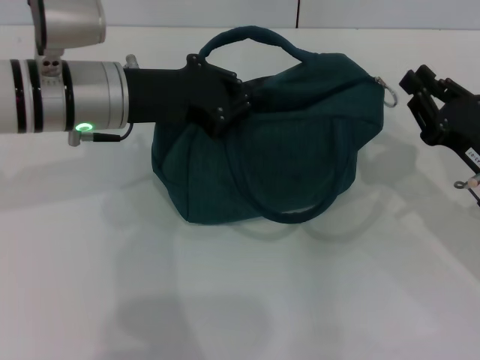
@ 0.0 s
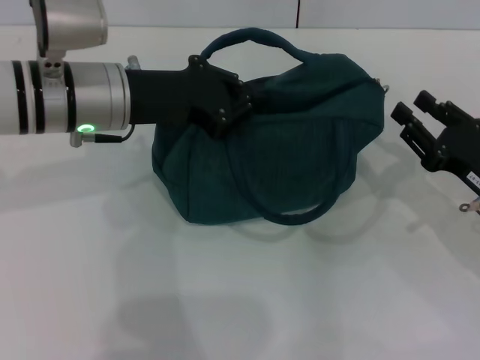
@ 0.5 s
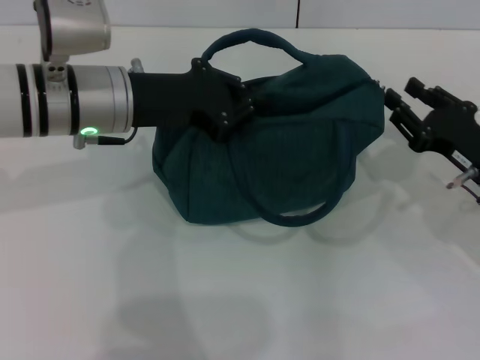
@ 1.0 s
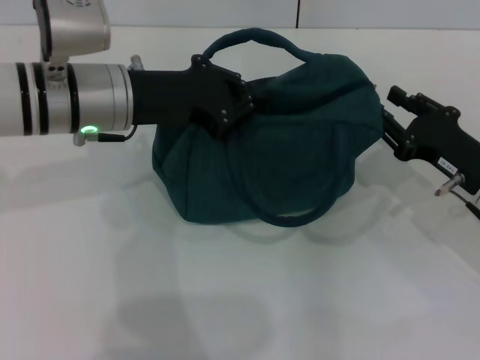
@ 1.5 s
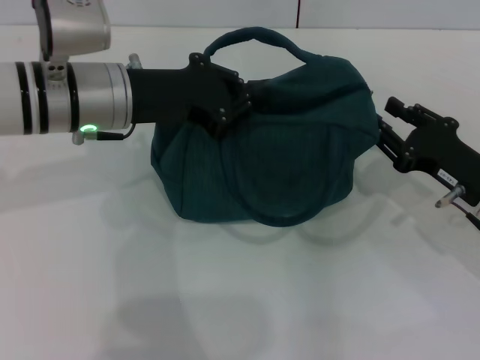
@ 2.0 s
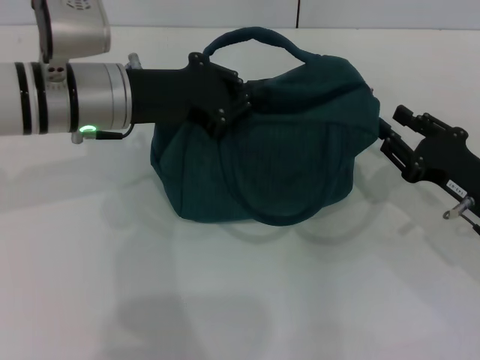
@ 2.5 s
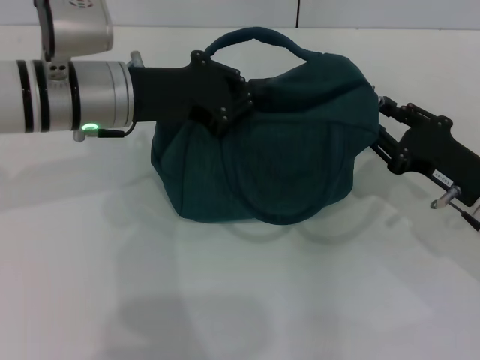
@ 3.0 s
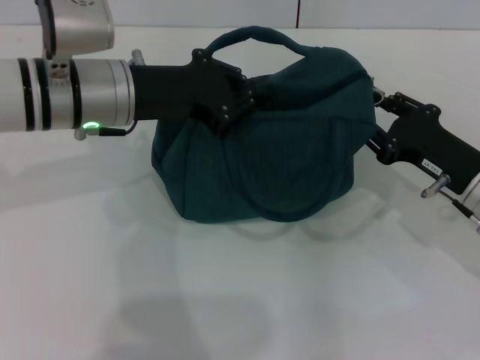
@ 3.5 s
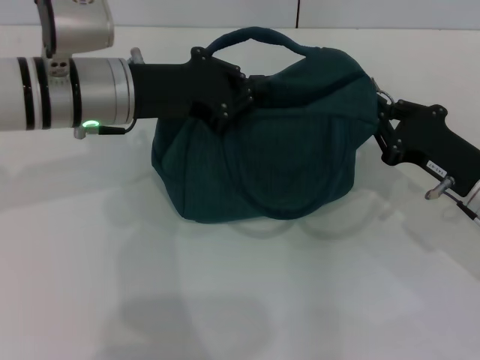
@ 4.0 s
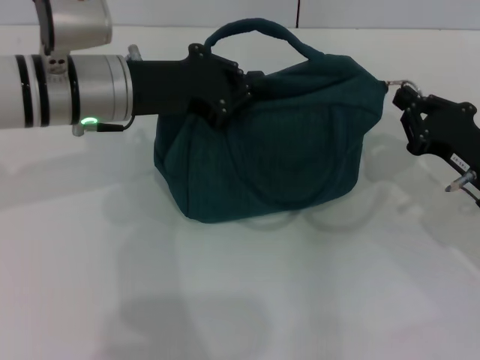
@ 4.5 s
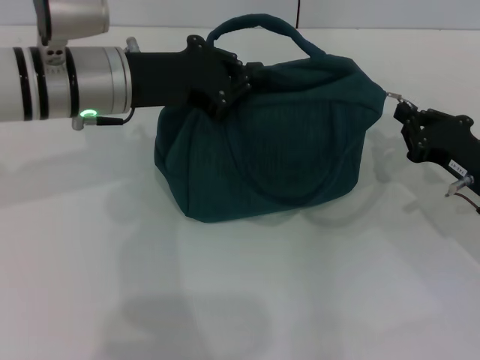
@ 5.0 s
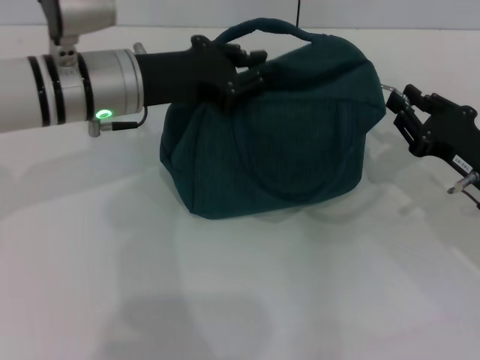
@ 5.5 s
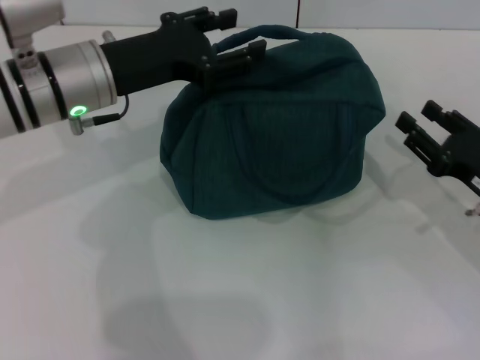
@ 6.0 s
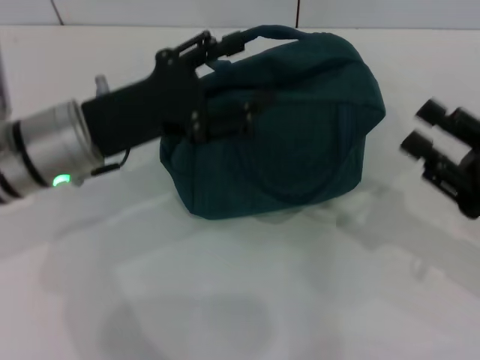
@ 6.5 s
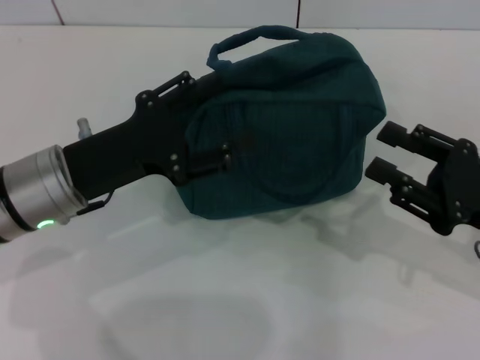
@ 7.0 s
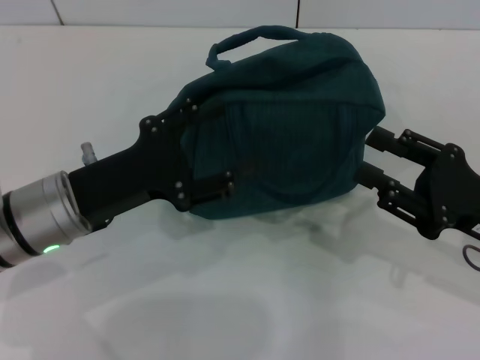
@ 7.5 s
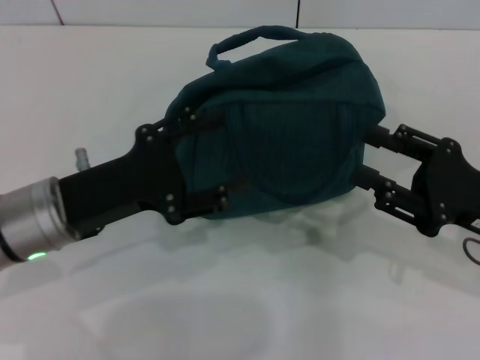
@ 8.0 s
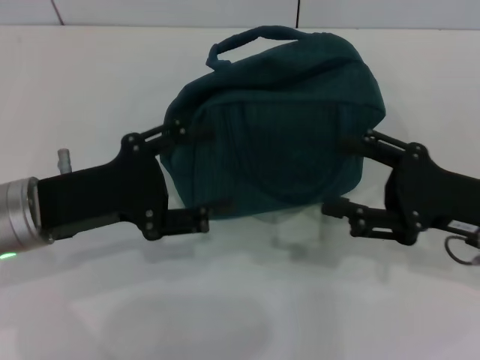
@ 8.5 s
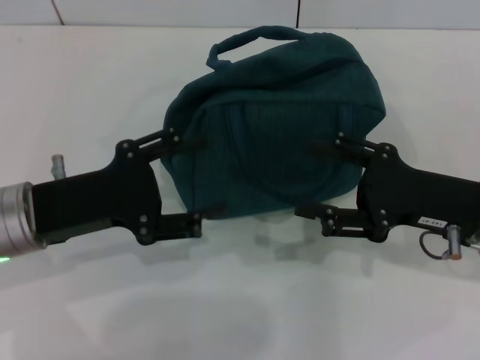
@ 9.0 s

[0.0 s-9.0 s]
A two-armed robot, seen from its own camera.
Step, 0.0 to 5.5 s: Zip up the lunch bag with your right hand.
0.0 to 2.0 s: The right gripper opens its fingers.
2.0 to 4.5 s: The right gripper closes its fingers.
4.5 to 7.0 s: The left gripper shifts roughly 10 cm backward and downward, and opens. Meanwhile the right gripper heads backward, covering about 5 cm, and opens its fingers.
7.0 to 9.0 s: The right gripper moves some 5 cm, and opens up.

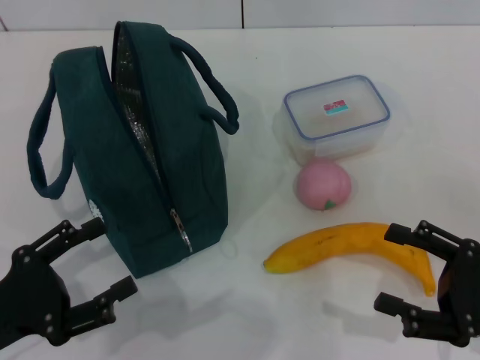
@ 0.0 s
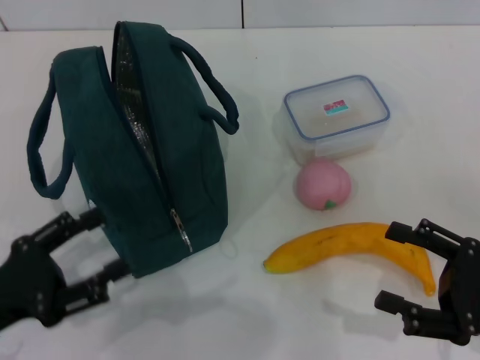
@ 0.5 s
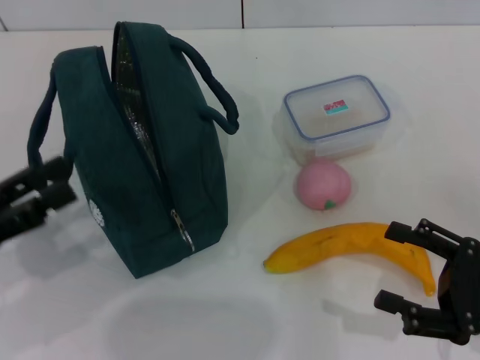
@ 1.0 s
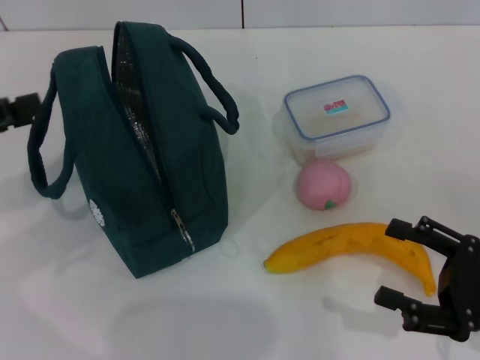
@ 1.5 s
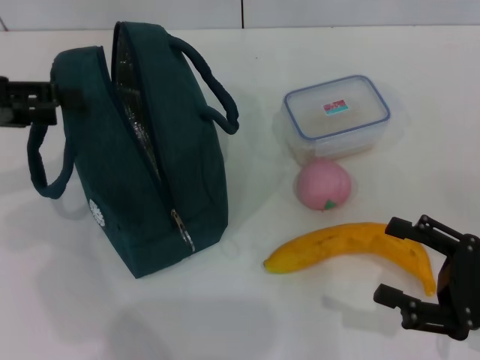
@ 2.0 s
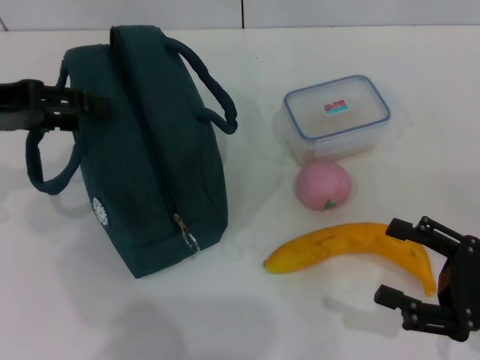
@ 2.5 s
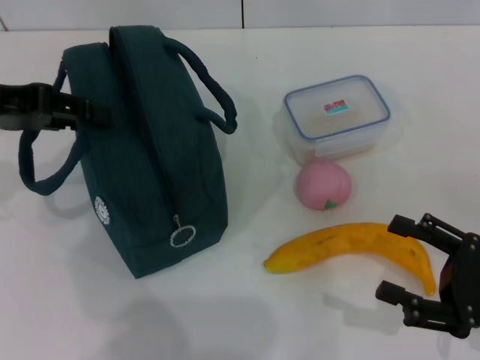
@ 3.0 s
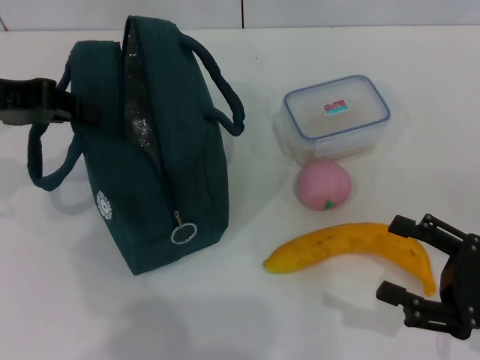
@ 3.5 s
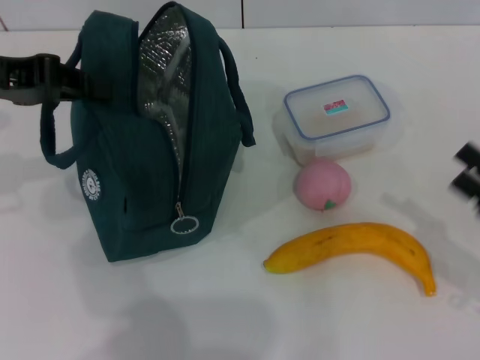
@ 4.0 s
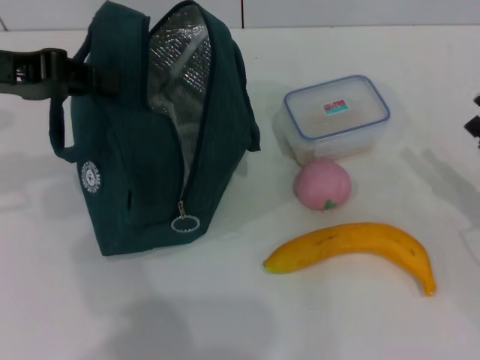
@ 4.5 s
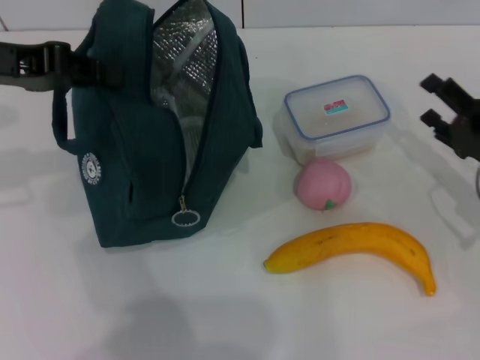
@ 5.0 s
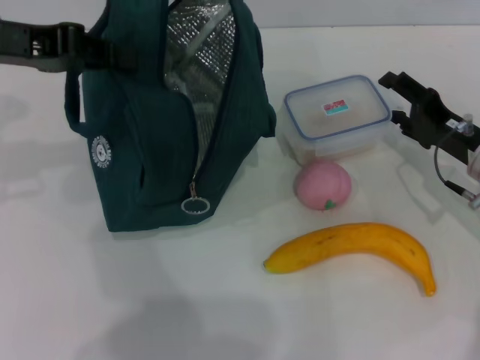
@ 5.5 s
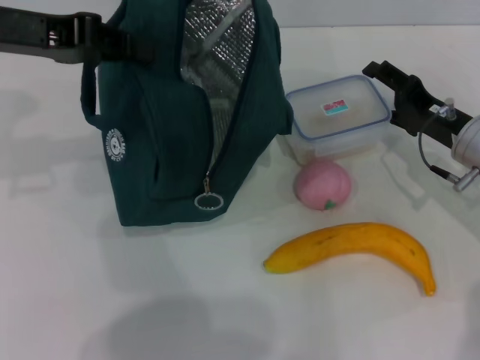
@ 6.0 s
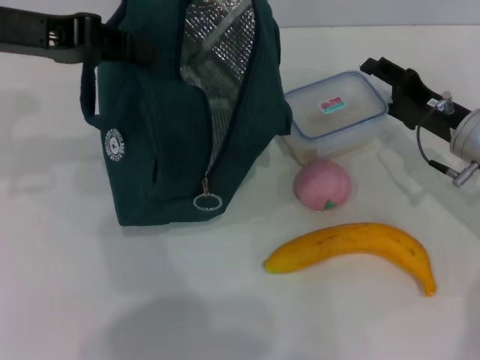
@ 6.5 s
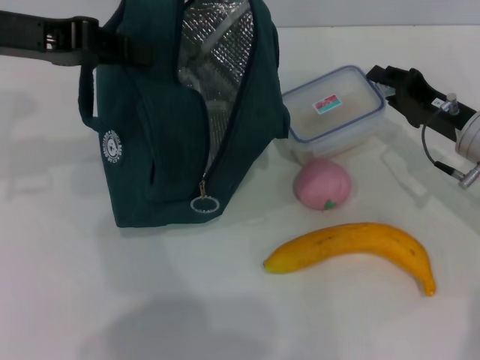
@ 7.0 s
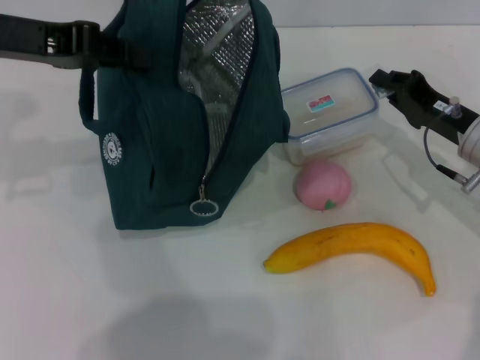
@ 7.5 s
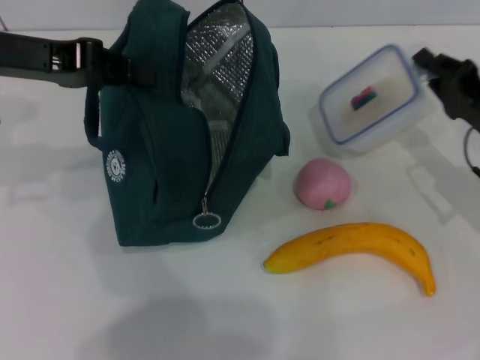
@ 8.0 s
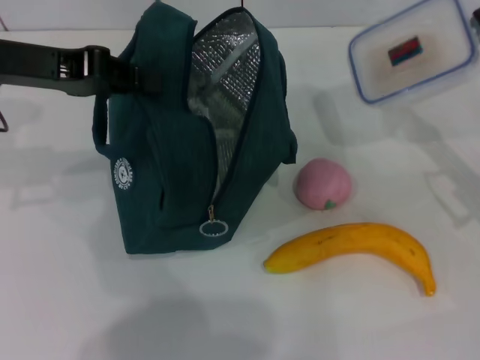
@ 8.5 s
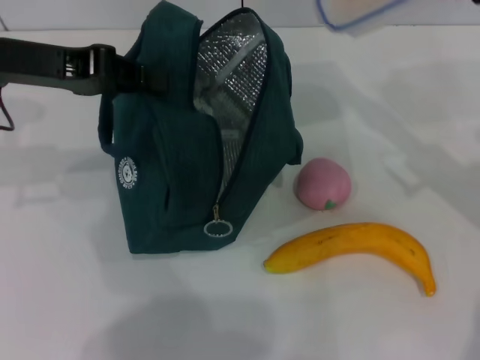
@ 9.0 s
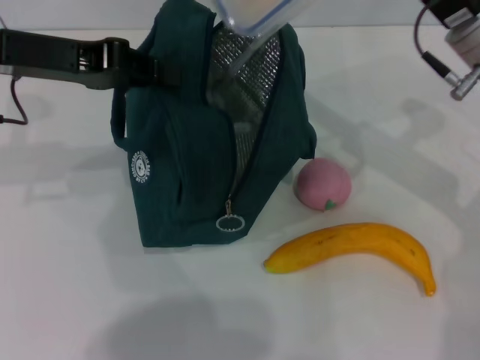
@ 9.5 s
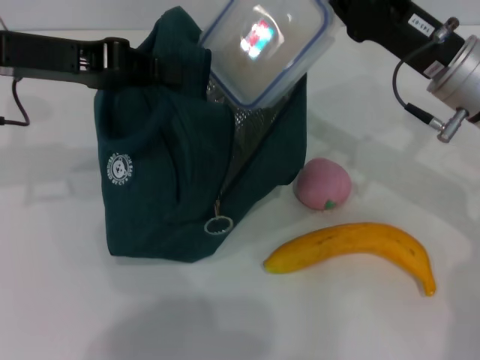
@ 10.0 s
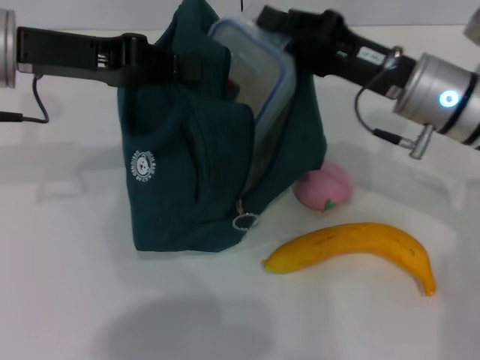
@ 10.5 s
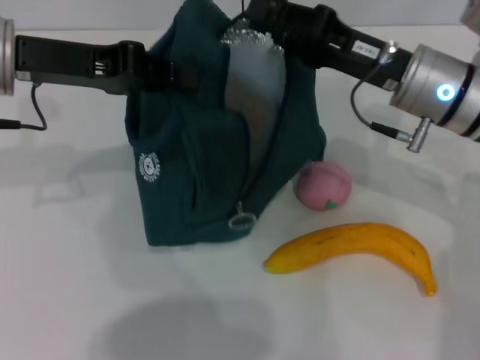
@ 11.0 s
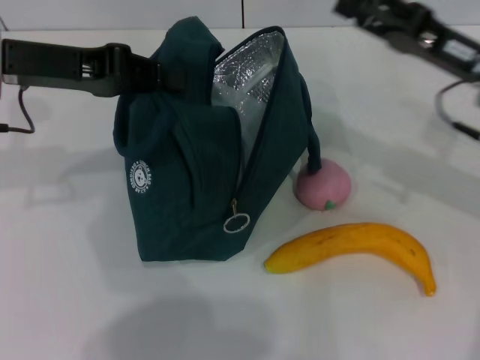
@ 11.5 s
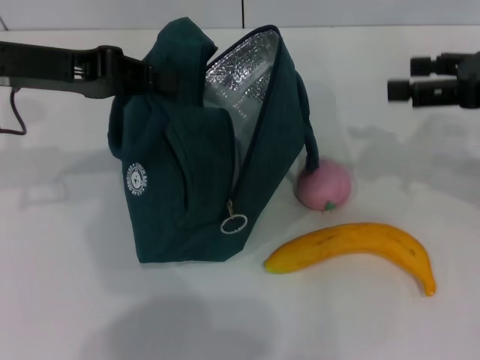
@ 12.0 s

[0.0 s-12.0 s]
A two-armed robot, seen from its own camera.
Step, 0.0 to 3.0 s: Hold the lunch bag with your left hand.
Step, 3.5 to 7.0 s: Pick up the lunch box with your right hand.
Step, 7.5 to 11.0 s: Place the lunch box into the lunch bag with your right hand.
0.0 to 2.0 s: The left gripper heads upward and forward, covering about 20 cm.
2.0 to 4.0 s: The left gripper closes its fingers.
4.0 to 6.0 s: The right gripper goes roughly 20 cm forward and to the left.
6.0 to 8.0 s: The right gripper closes up.
8.0 to 10.0 s: The right gripper shifts about 10 cm to the left and upward.
10.0 to 12.0 s: The right gripper shifts about 10 cm to the right and upward, and opens up.

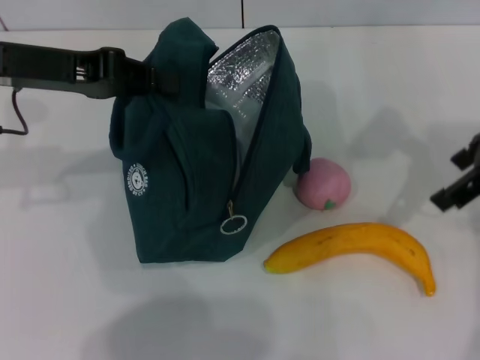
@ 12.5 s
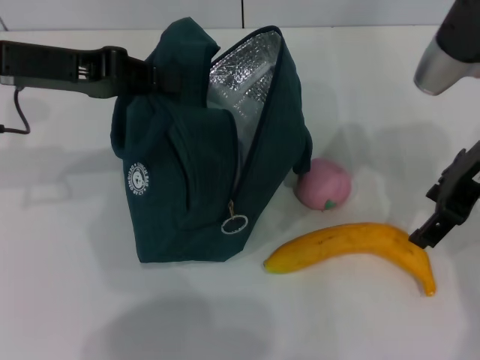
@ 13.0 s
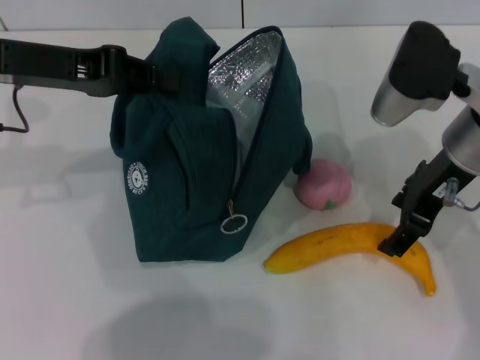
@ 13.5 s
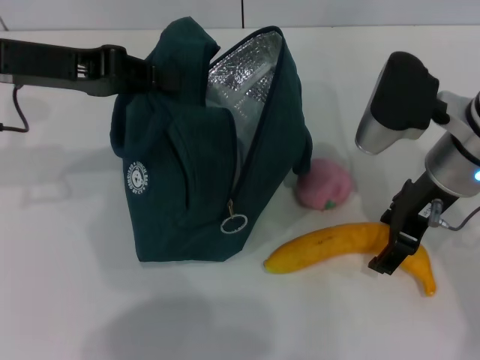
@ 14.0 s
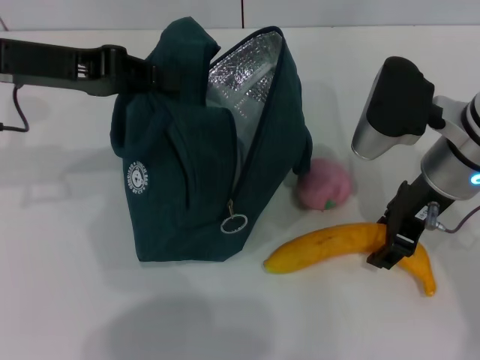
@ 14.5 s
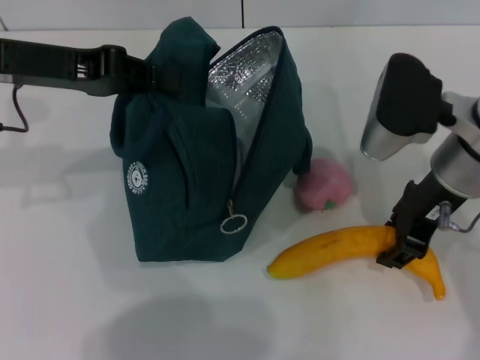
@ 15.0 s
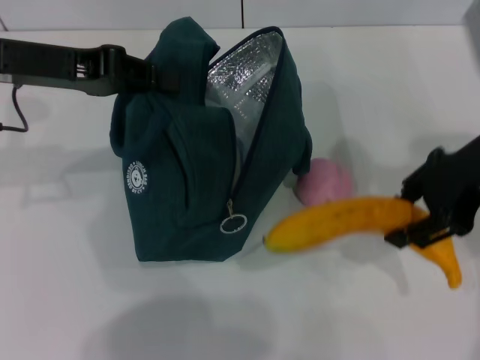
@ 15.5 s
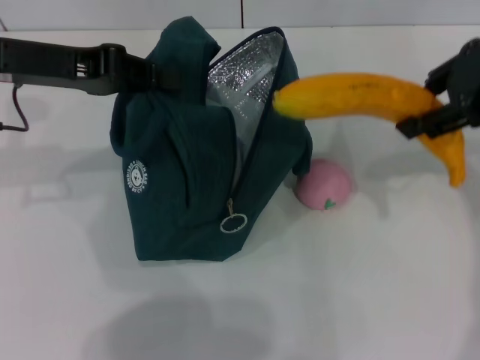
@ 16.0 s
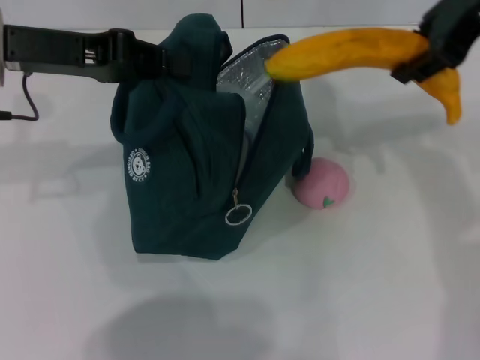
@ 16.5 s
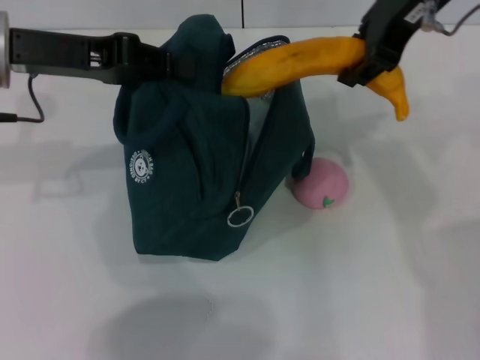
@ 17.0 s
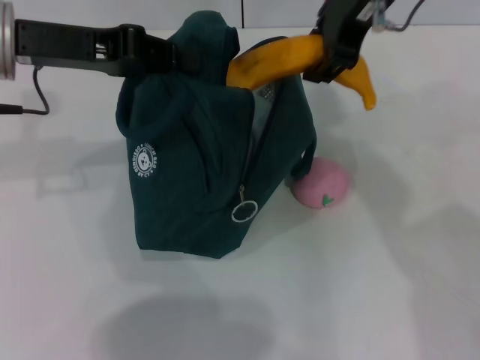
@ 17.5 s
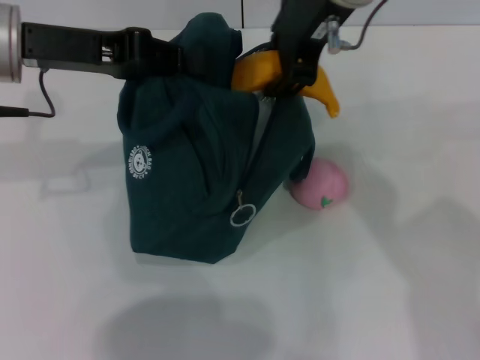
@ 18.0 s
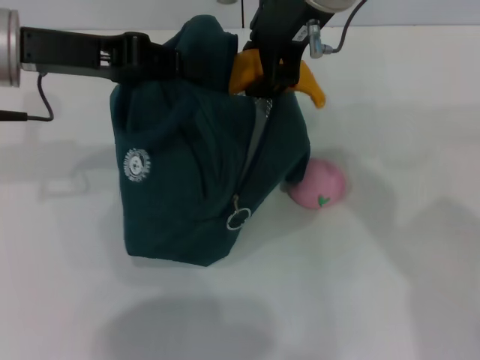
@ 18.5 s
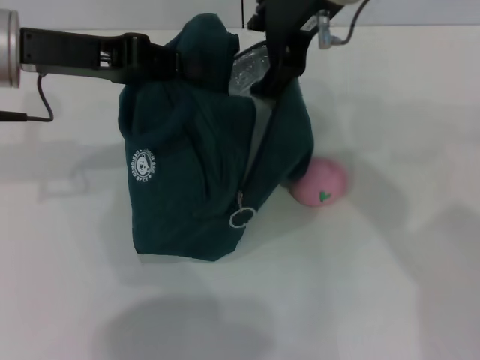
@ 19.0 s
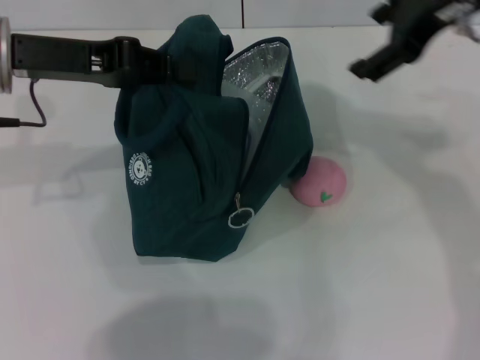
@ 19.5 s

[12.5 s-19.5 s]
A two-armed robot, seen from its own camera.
Step, 12.5 to 14.5 s: Take the banana with your right hand.
Step, 15.0 to 18.5 s: Put the banana into the lunch bag with your right hand.
12.5 to 14.5 s: The right gripper travels downward and to the left by approximately 15 cm.
14.5 to 16.0 s: The right gripper heads upward and to the right, covering about 15 cm.
16.0 to 17.5 s: The right gripper heads to the left, covering roughly 15 cm.
17.5 to 19.5 s: The right gripper moves to the right, about 10 cm, and opens.
